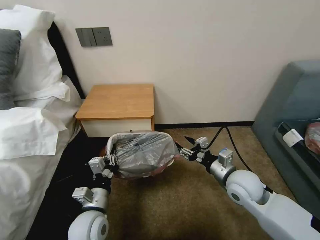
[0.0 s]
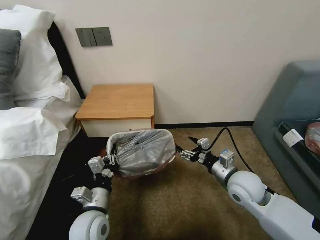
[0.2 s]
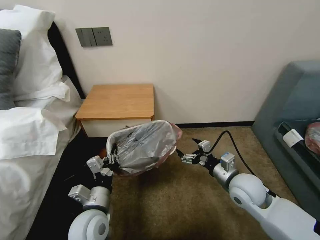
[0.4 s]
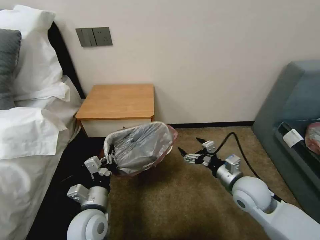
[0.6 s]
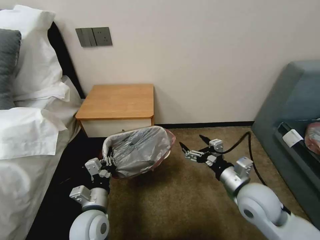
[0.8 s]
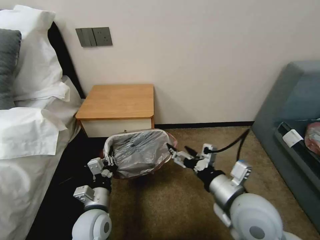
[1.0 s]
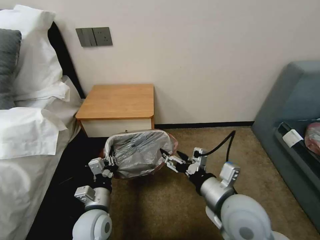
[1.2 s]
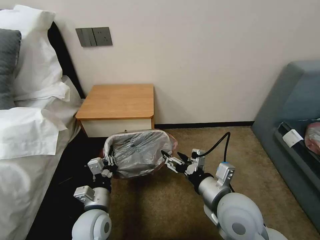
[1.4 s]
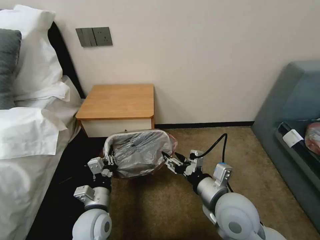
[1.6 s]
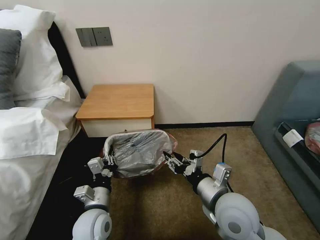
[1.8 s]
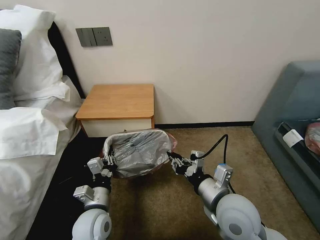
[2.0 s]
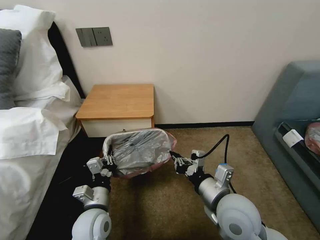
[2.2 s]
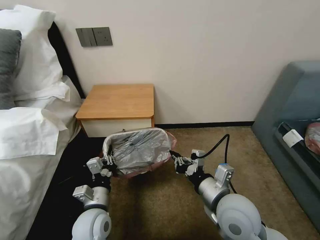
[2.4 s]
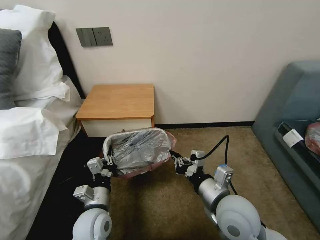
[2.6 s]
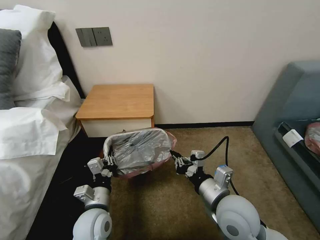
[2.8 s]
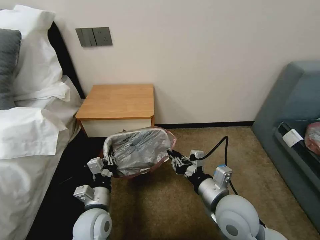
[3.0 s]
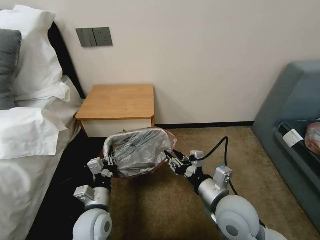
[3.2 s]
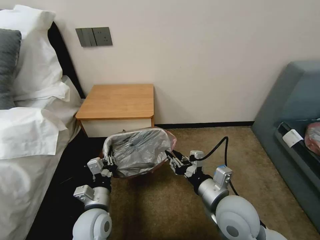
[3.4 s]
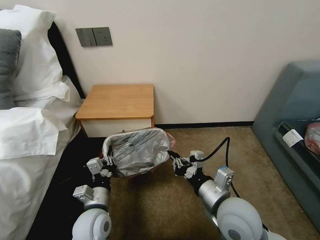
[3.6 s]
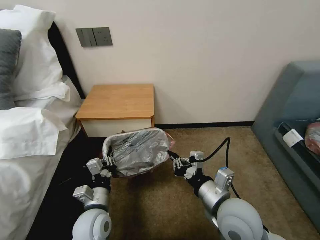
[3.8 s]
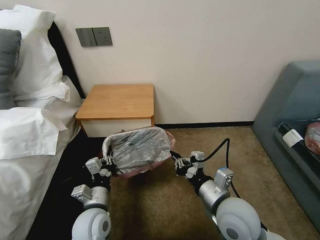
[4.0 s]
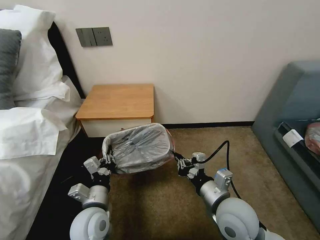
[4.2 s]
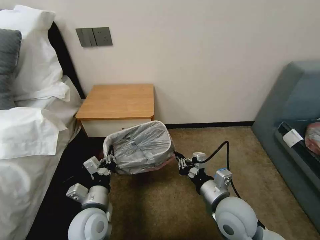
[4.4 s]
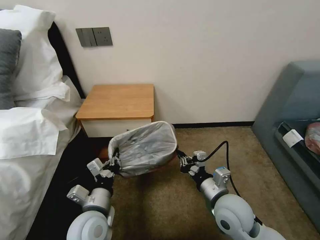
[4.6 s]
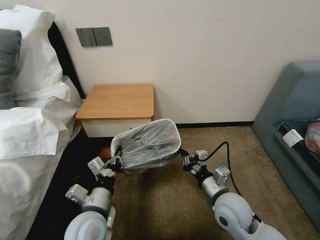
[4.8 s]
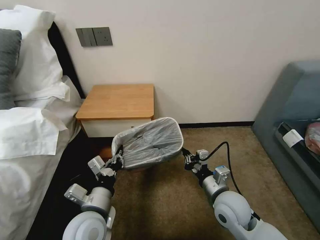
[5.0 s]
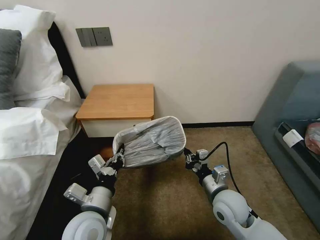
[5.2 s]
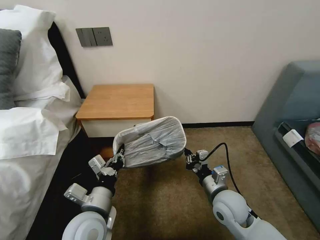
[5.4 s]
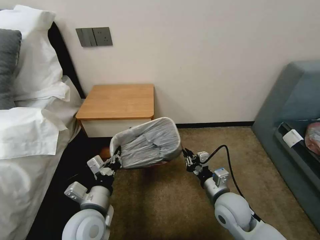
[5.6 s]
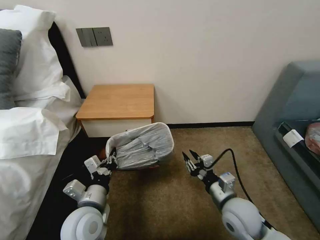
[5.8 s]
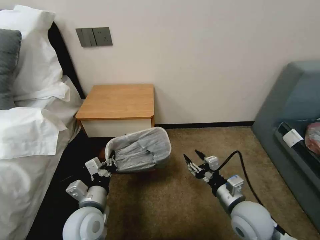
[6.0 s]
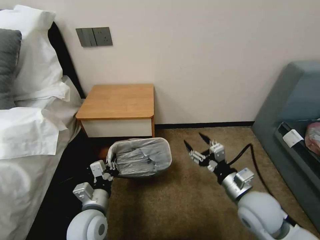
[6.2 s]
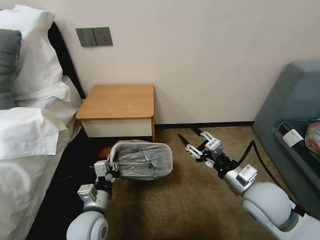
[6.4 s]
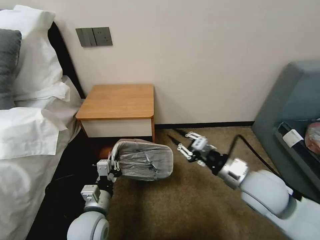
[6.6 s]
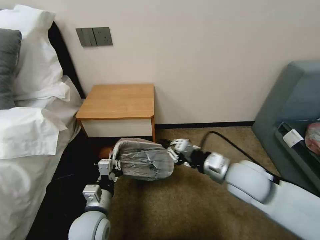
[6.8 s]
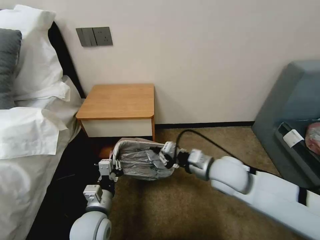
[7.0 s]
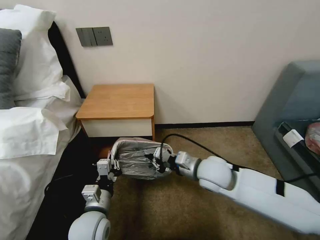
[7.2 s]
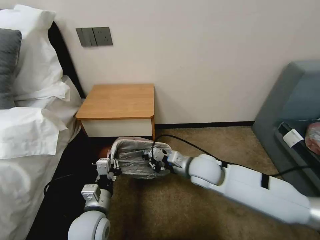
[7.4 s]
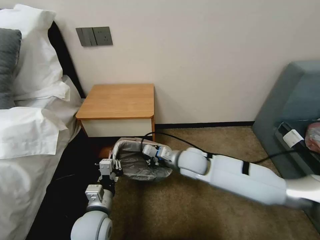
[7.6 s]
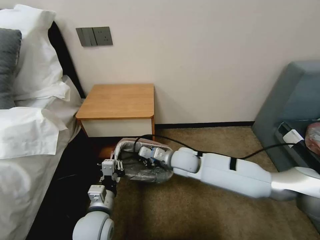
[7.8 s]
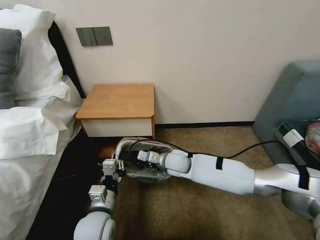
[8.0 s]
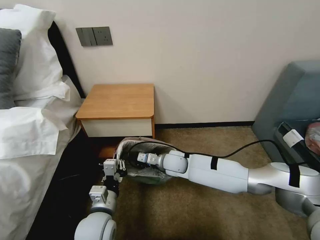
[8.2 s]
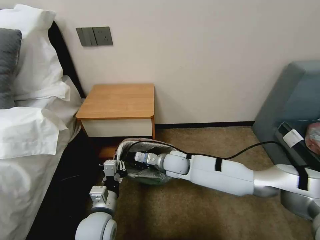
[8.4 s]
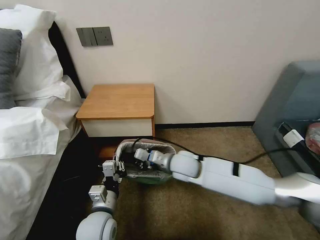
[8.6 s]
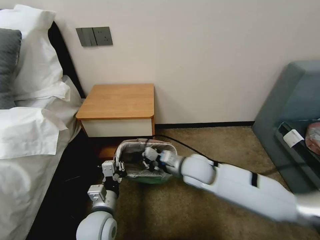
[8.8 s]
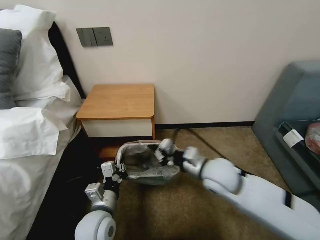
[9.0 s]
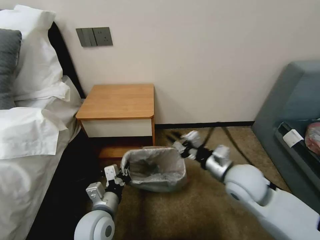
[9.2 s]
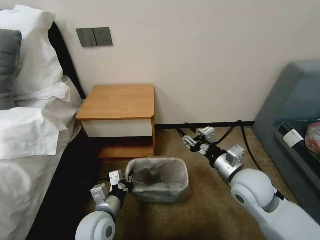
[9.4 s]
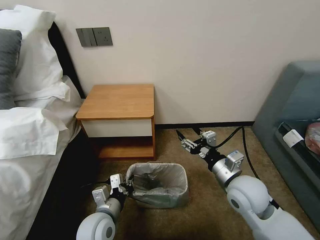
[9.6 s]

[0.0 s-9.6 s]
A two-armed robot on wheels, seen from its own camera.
Task of the whole recording: Pick up the garbage bag from the table and place it over the trash can.
0.0 to 1.6 s: The right gripper shifts approximately 10 cm backward and to the left.
1.6 to 3.2 s: The right gripper closes, then opens again.
3.2 to 4.8 s: The right gripper heads downward, covering about 5 cm, and closes its fingers. The left gripper travels upward by approximately 5 cm.
4.8 to 6.4 s: The right gripper heads upward and to the right, covering some 10 cm, and opens its fingers.
6.4 to 8.0 s: The right gripper travels to the left, forward and downward by approximately 30 cm, and closes up.
8.0 to 9.6 s: The right gripper moves to the right, backward and upward, approximately 25 cm, and opens.

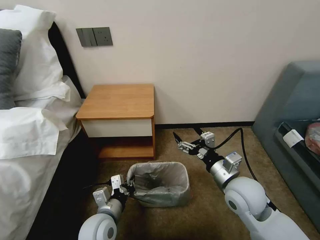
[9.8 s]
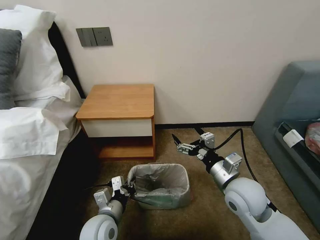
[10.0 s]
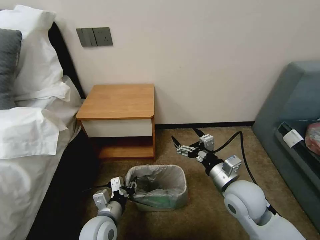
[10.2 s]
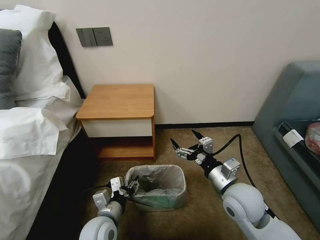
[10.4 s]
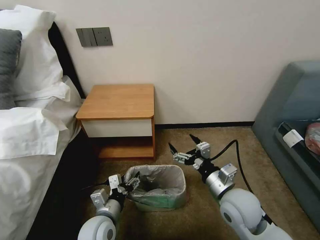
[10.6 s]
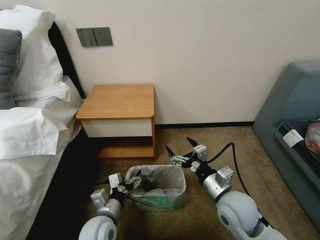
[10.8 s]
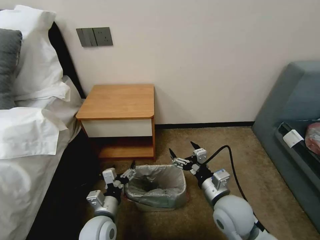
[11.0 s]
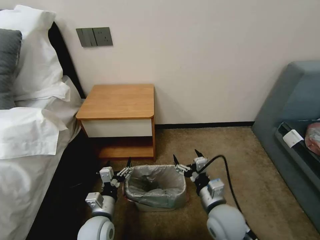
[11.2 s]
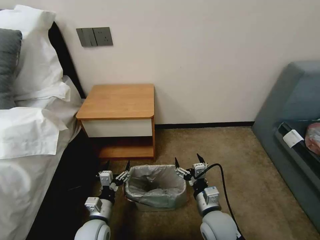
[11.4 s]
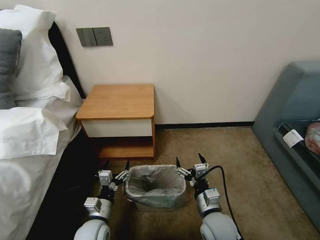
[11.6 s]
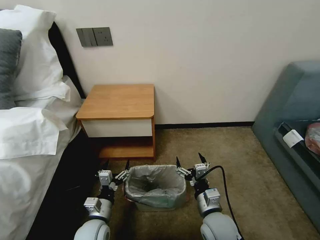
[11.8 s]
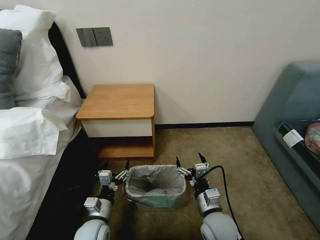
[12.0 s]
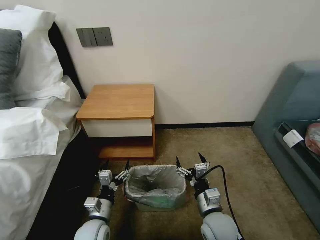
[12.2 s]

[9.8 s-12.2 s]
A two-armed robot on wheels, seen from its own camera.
Task of the whole recording: Pick up the garbage bag from the table and place it over the trash can.
9.8 to 11.0 s: The left gripper opens. The right gripper changes place by about 5 cm.
11.0 to 12.2 s: The left gripper shifts by approximately 5 cm. The right gripper moves downward, roughly 10 cm.

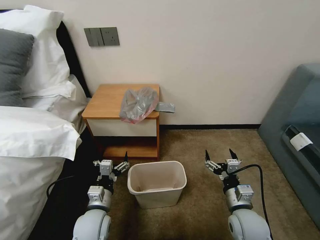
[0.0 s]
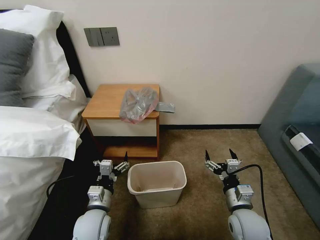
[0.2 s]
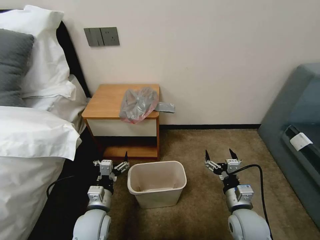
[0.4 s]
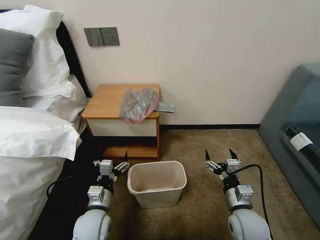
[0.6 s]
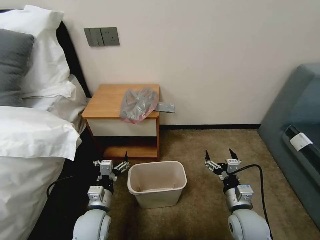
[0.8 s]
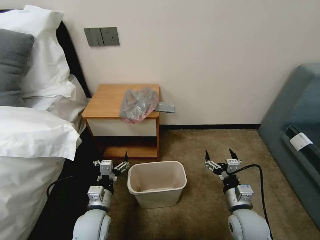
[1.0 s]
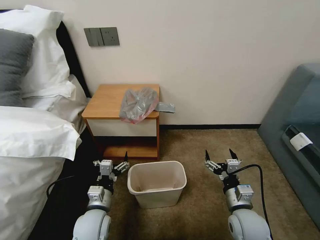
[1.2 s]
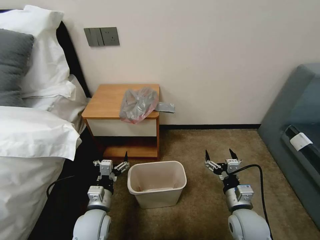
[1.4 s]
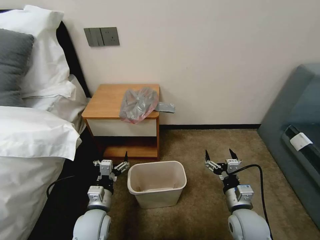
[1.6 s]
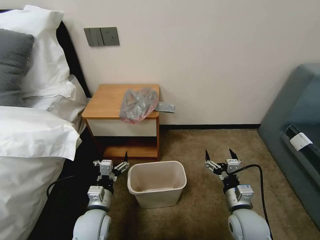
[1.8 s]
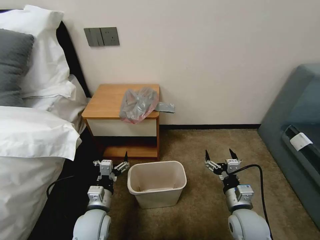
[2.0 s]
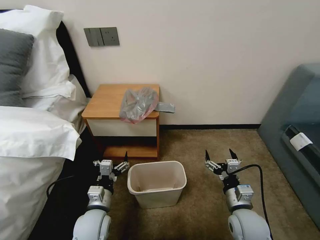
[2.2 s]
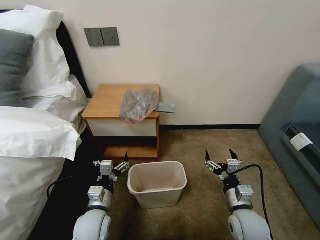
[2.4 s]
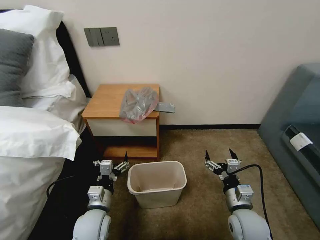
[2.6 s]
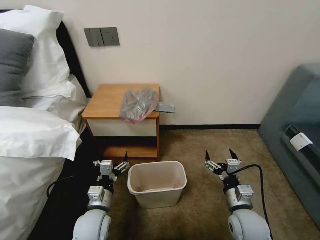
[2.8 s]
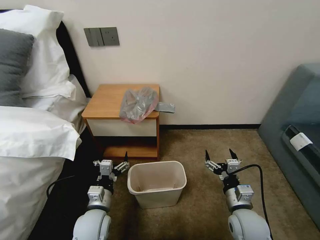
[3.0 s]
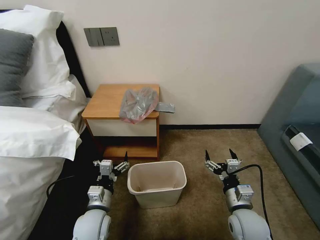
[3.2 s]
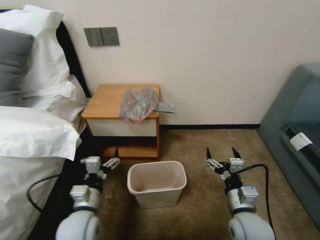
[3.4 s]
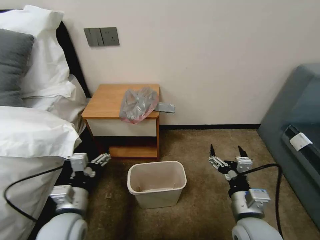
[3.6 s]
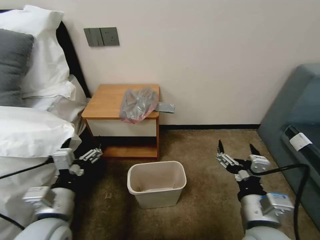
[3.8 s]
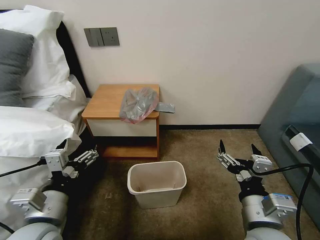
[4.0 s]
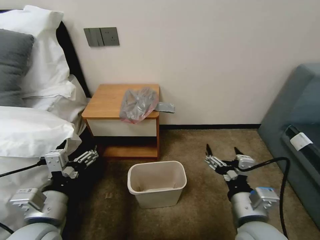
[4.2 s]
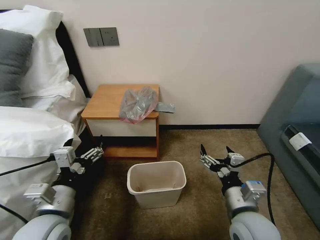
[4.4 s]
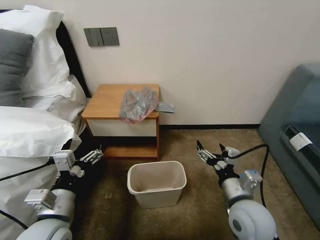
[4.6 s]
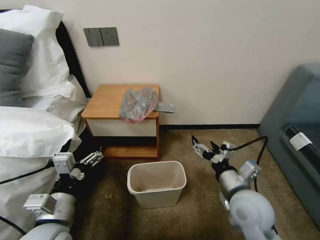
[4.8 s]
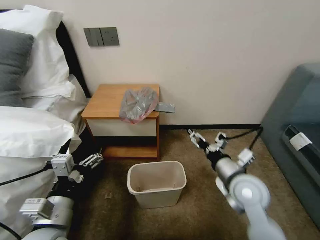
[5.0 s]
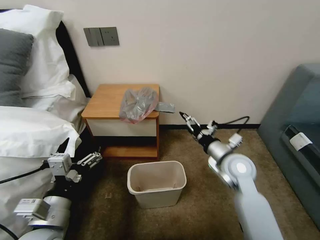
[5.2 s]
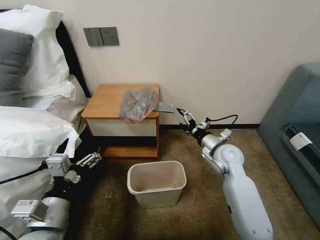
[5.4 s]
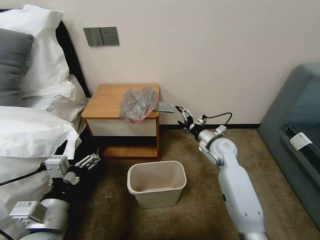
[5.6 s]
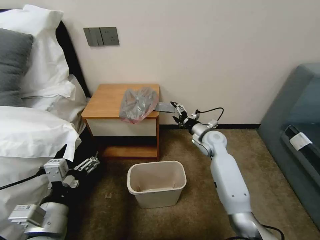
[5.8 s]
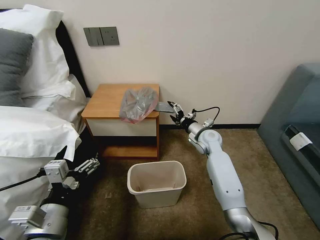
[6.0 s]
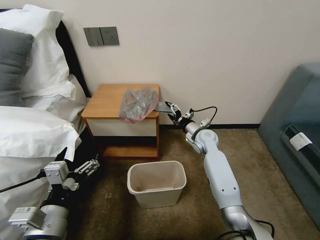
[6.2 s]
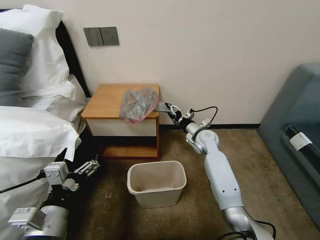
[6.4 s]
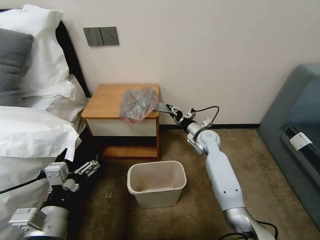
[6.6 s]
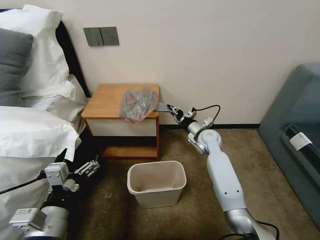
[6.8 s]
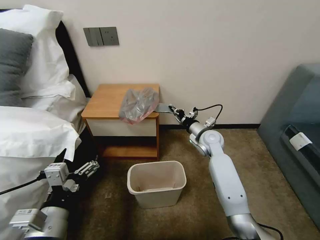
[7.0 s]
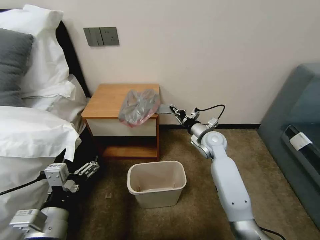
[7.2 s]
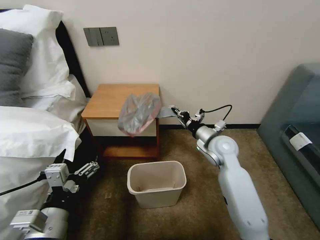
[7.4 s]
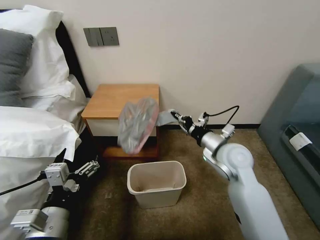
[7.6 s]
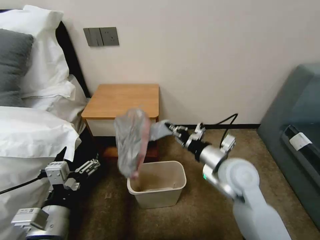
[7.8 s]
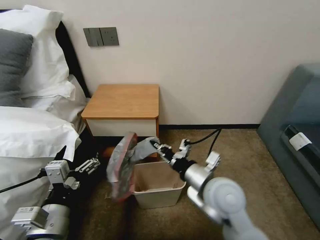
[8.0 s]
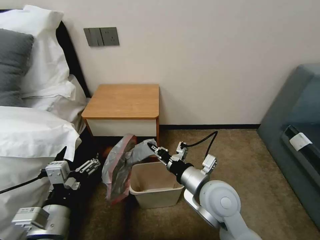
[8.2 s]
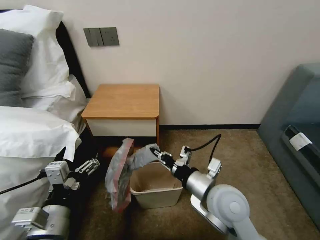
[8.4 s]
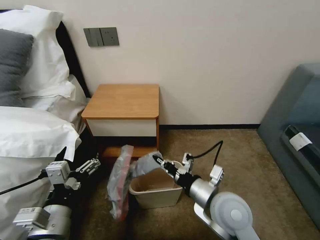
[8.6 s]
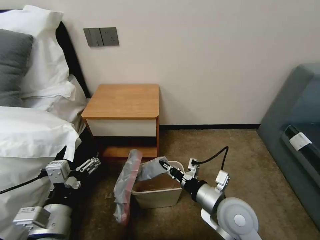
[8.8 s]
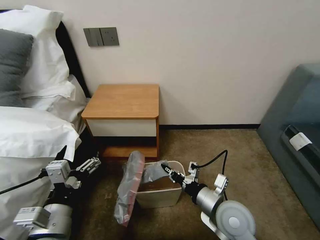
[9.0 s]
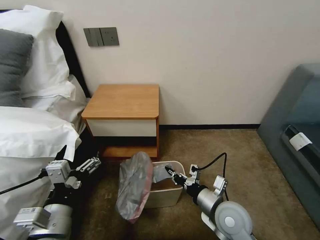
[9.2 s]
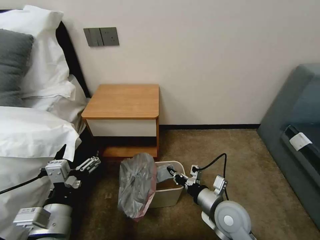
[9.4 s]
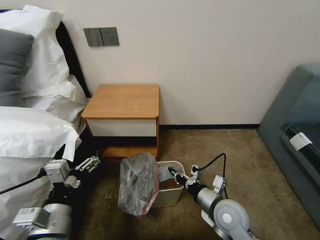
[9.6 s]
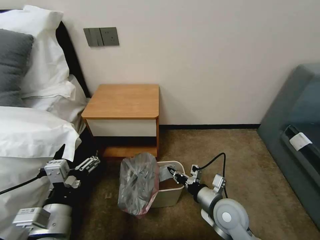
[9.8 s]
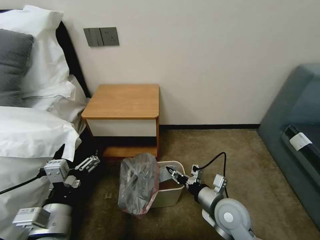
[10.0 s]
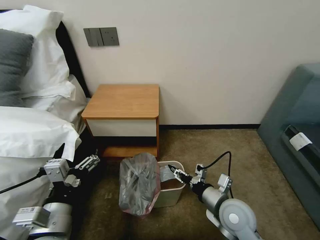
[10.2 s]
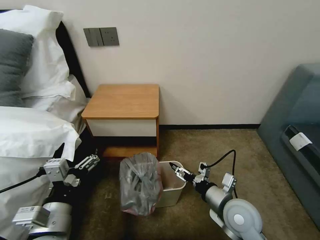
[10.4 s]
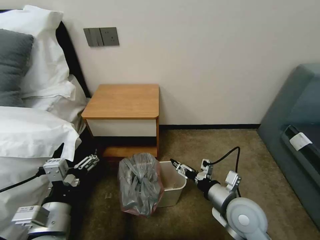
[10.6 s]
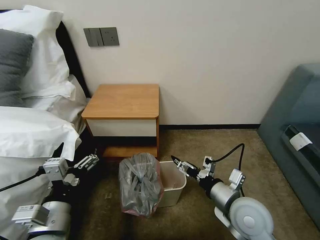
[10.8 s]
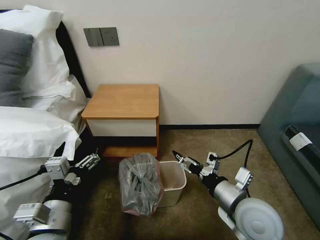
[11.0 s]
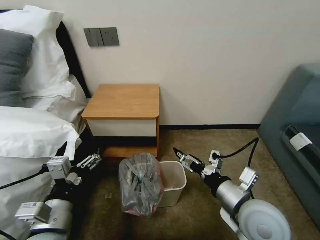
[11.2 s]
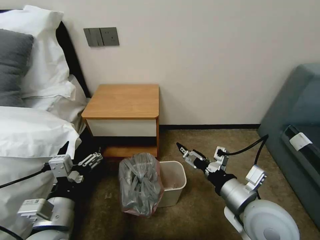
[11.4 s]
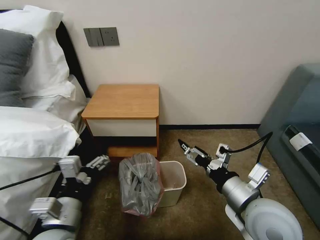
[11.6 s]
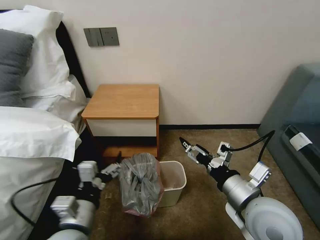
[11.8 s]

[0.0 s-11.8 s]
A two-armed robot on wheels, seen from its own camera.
Task of the whole recording: Pick up the garbage bag from the table and place it over the trash can.
1.4 to 3.0 s: Both grippers stay put.
3.0 to 4.4 s: The grippers both shift upward by about 10 cm.
4.4 to 6.0 s: The right gripper goes some 30 cm forward.
6.0 to 7.4 s: The right gripper is displaced backward and upward by about 10 cm, and closes its fingers.
7.4 to 8.8 s: The right gripper goes about 20 cm backward.
8.8 to 10.4 s: The right gripper changes place by about 5 cm, and opens.
10.4 to 11.8 s: The right gripper heads upward, covering about 10 cm.
